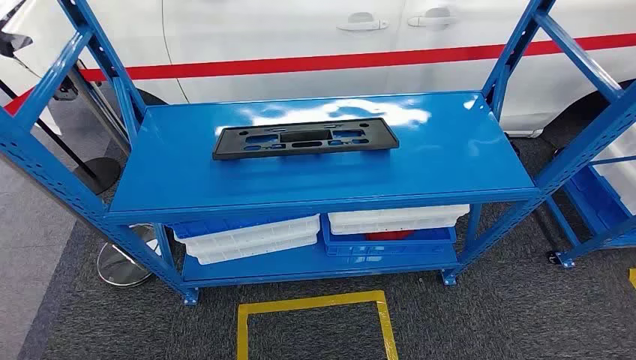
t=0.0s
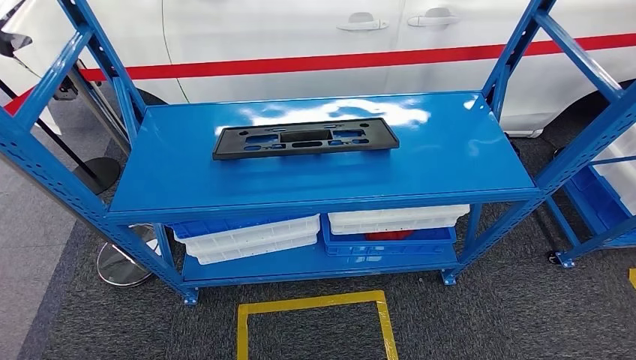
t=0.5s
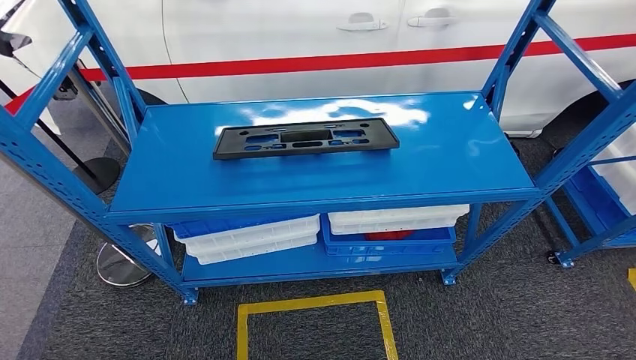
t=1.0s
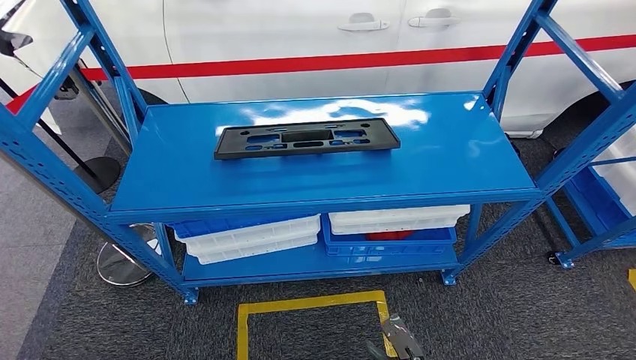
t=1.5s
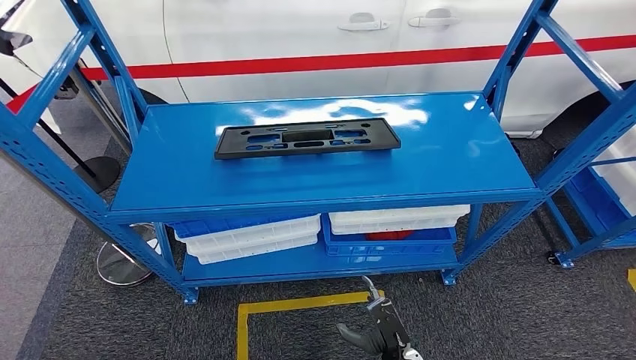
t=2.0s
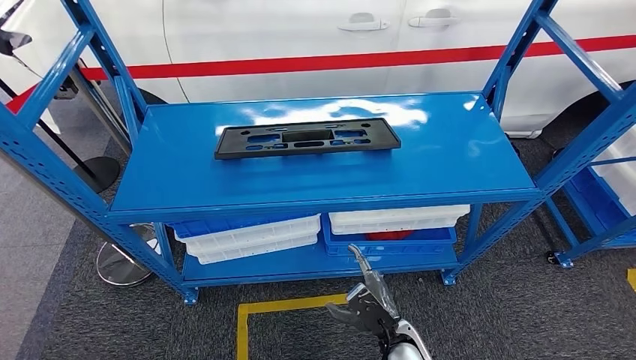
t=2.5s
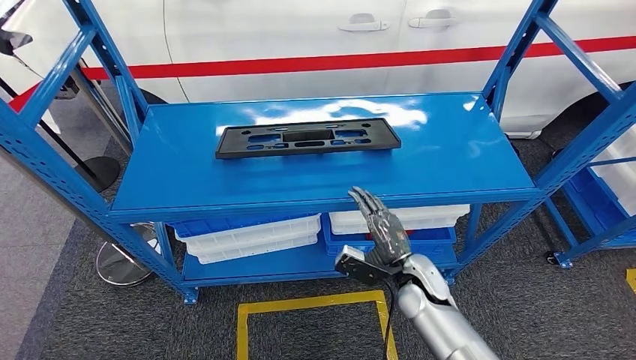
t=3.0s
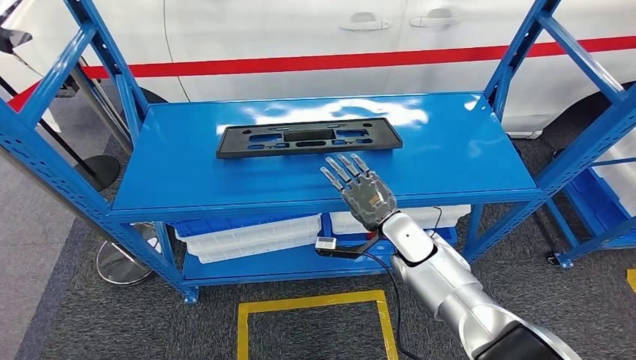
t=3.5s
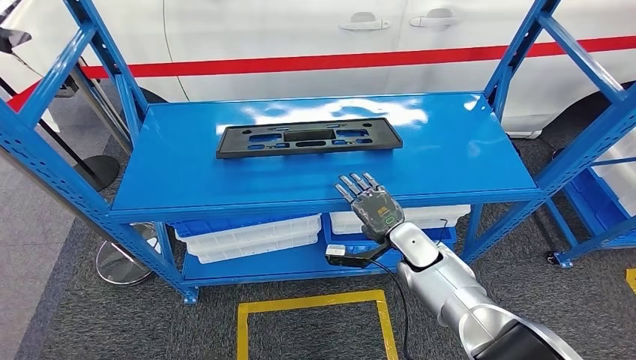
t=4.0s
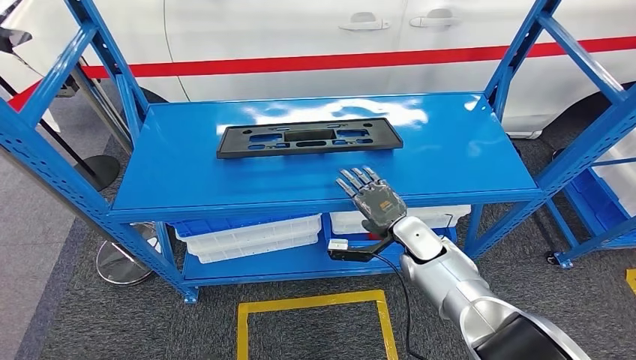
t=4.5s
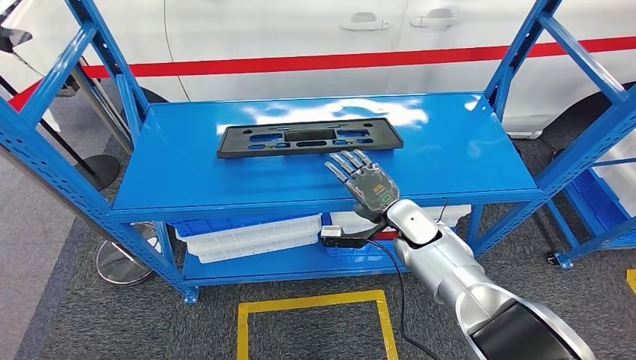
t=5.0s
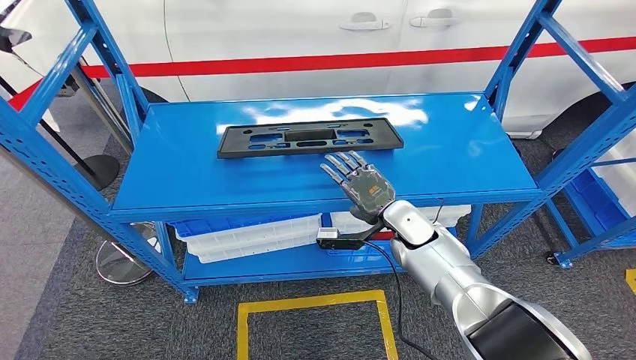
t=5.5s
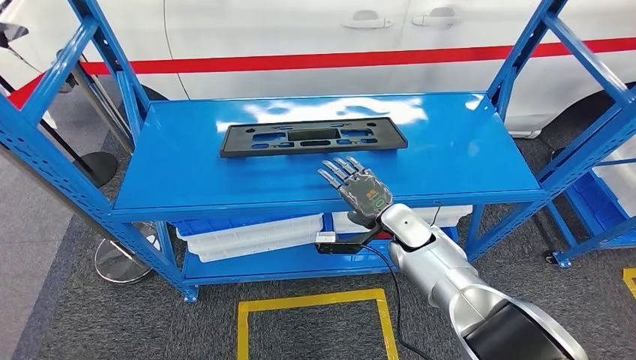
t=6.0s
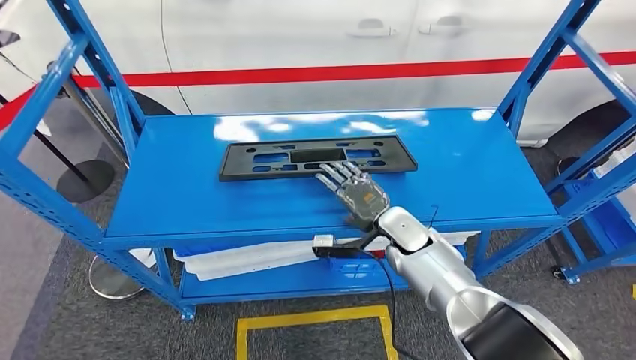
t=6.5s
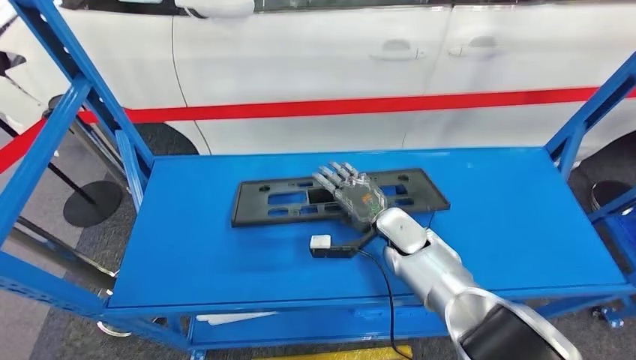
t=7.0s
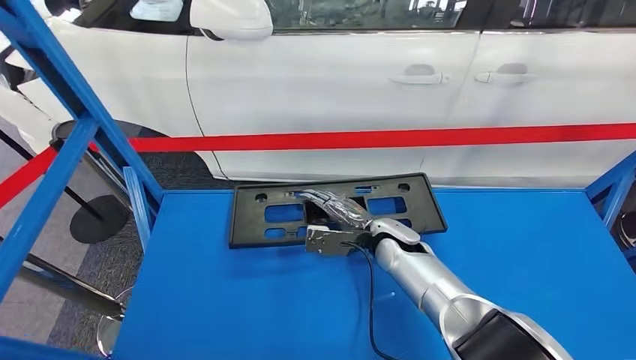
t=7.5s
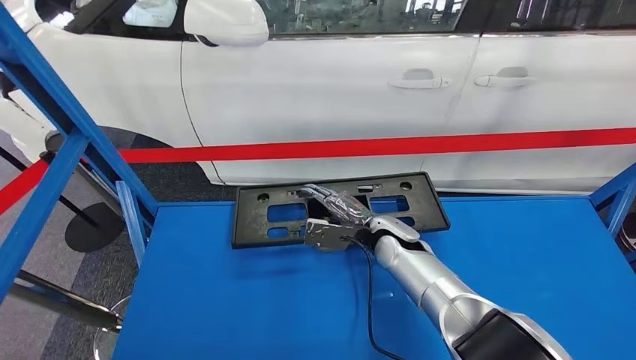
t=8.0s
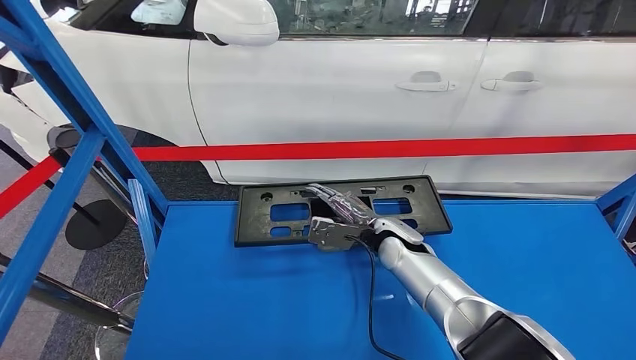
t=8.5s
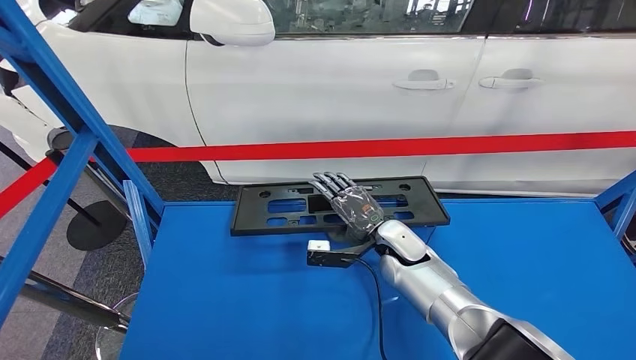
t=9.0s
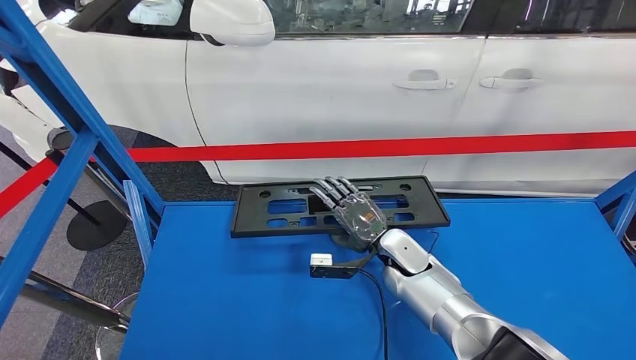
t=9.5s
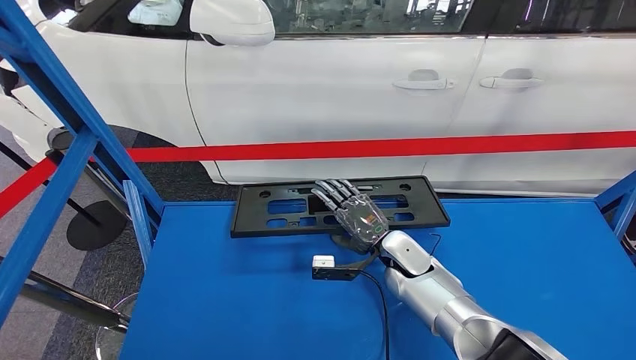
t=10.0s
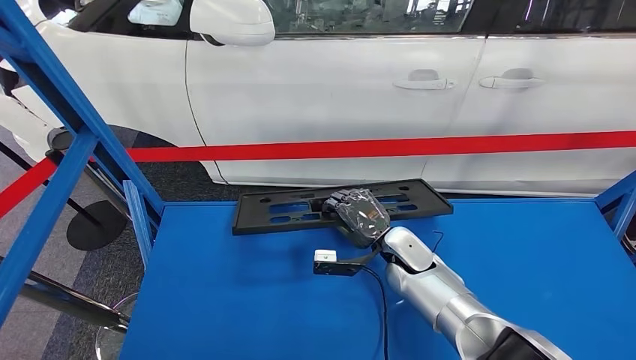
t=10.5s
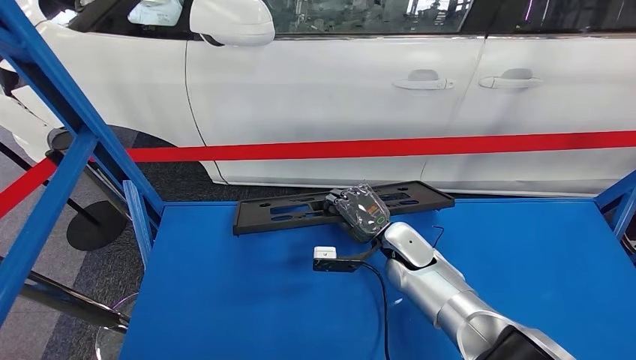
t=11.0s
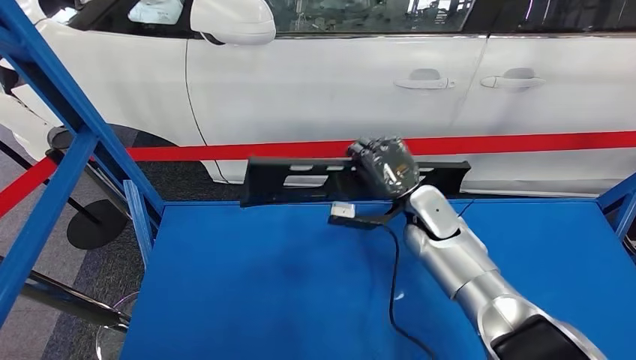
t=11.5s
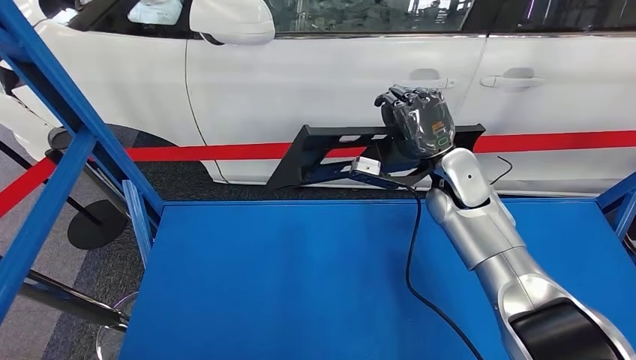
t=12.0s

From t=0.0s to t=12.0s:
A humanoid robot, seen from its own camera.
From t=2.0s to t=4.0s: The right hand travels forward and upward by roughly 25 cm.
From t=4.0s to t=6.0s: The hands move only a little.

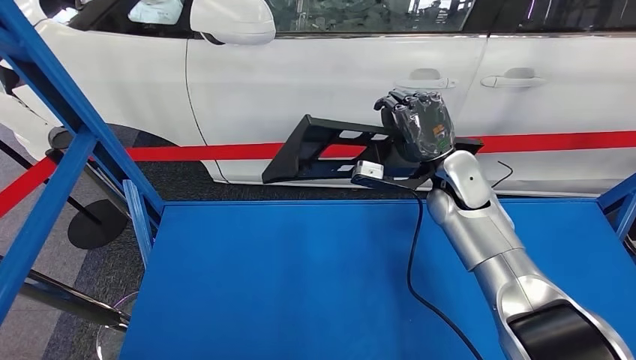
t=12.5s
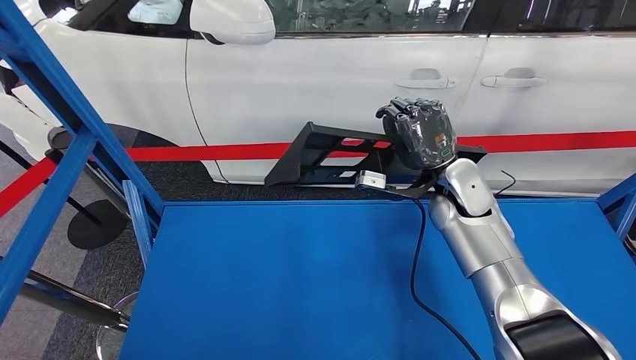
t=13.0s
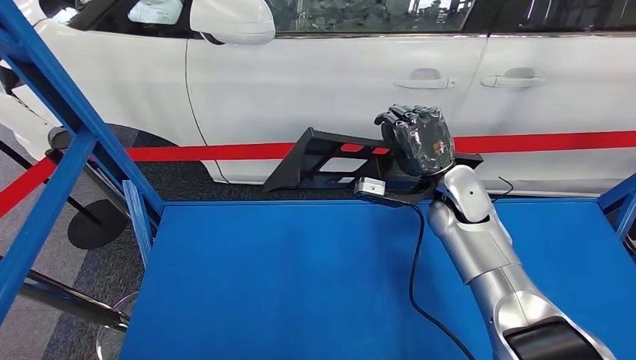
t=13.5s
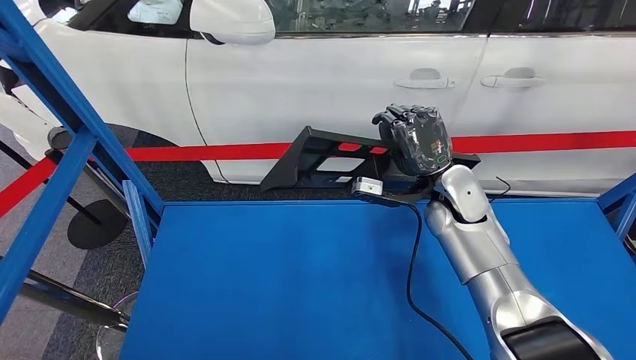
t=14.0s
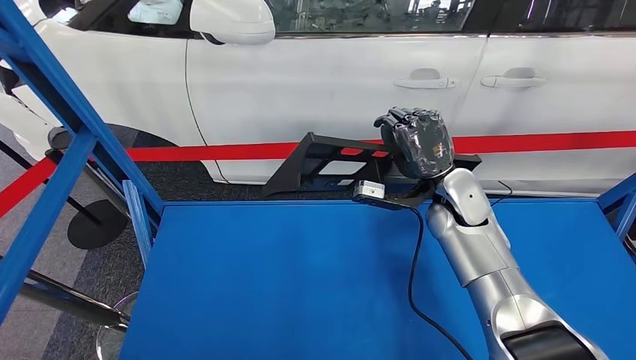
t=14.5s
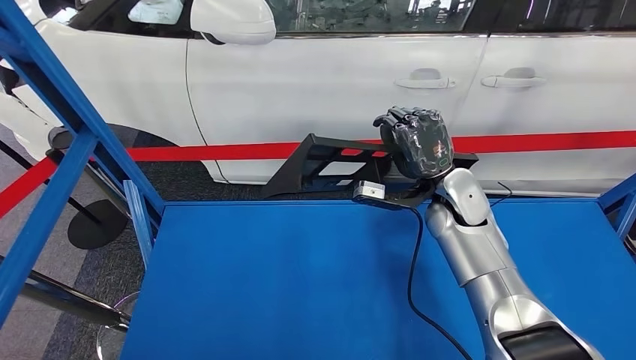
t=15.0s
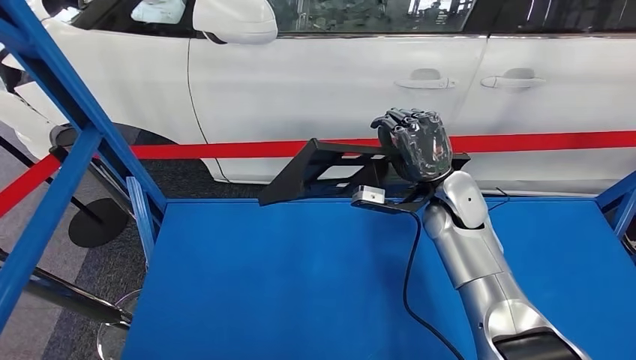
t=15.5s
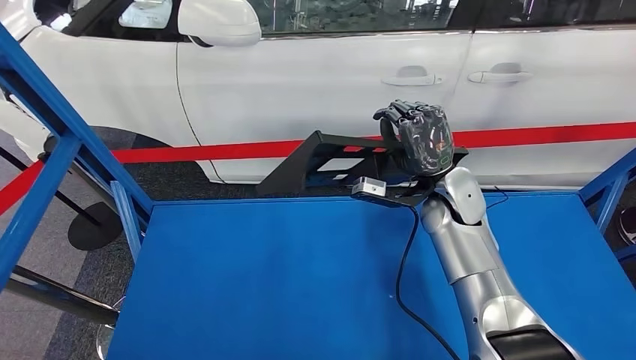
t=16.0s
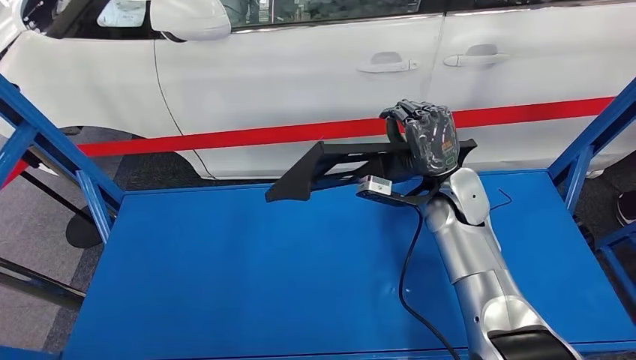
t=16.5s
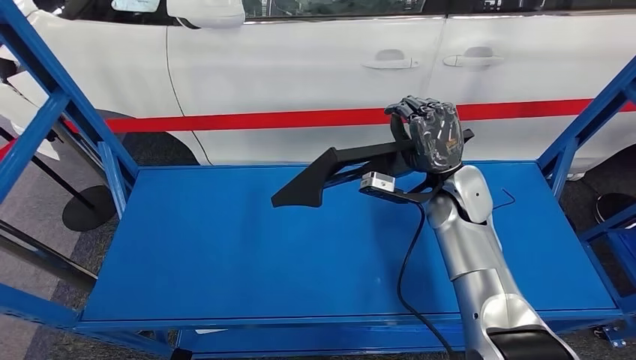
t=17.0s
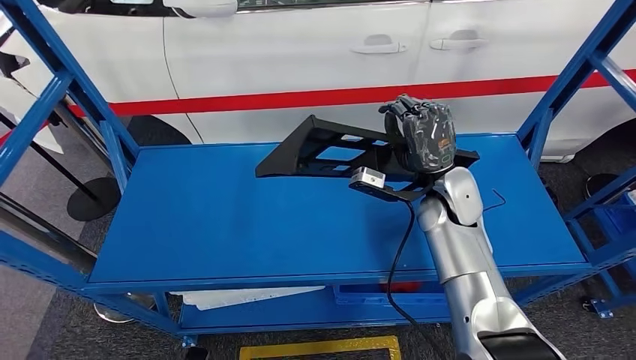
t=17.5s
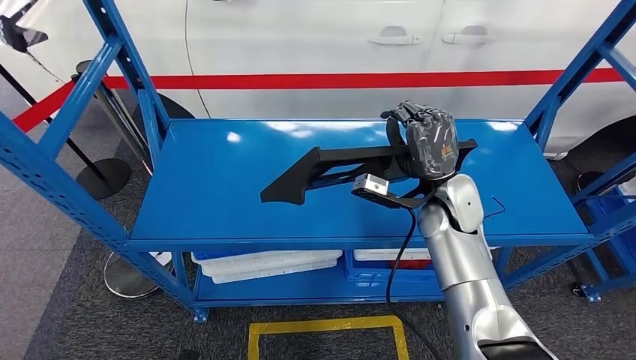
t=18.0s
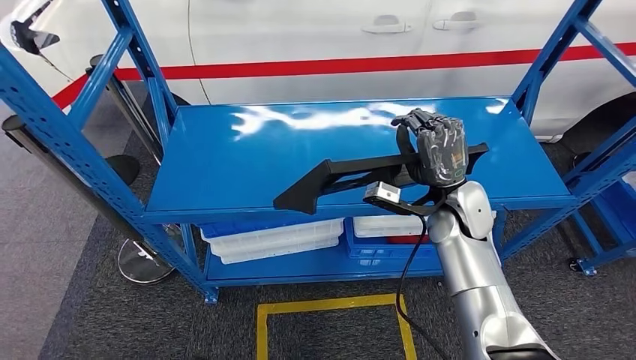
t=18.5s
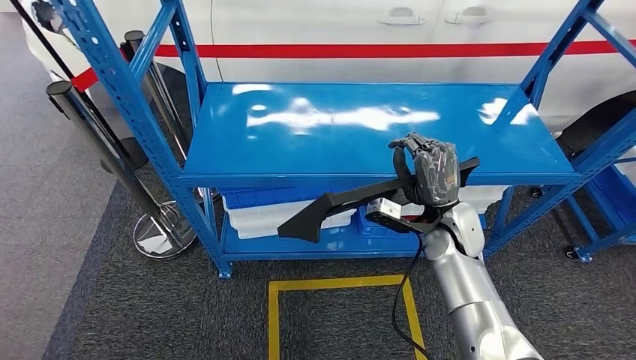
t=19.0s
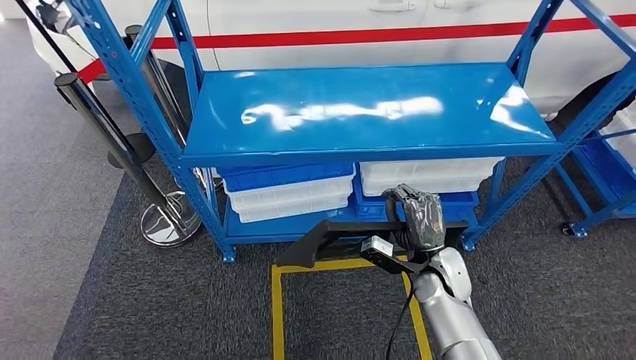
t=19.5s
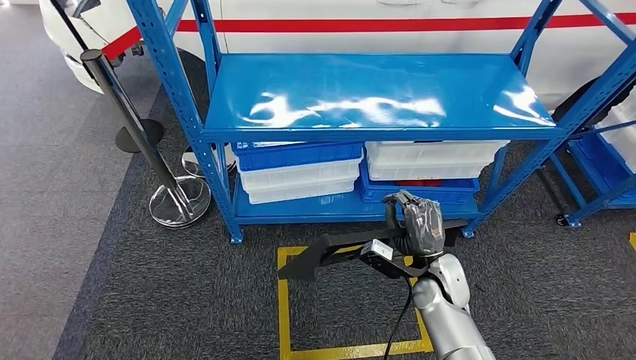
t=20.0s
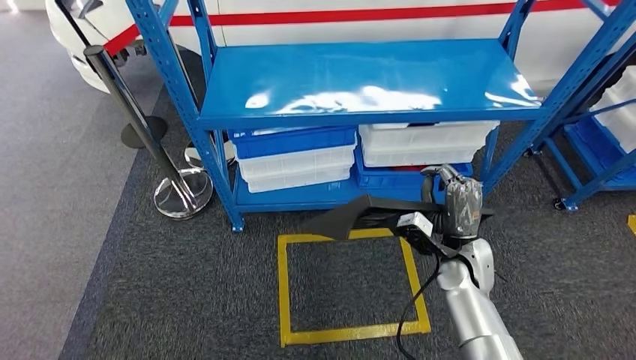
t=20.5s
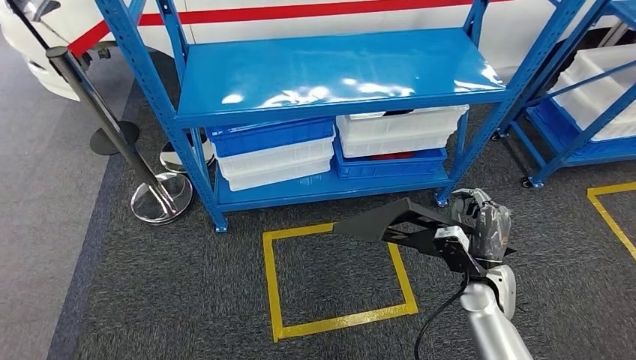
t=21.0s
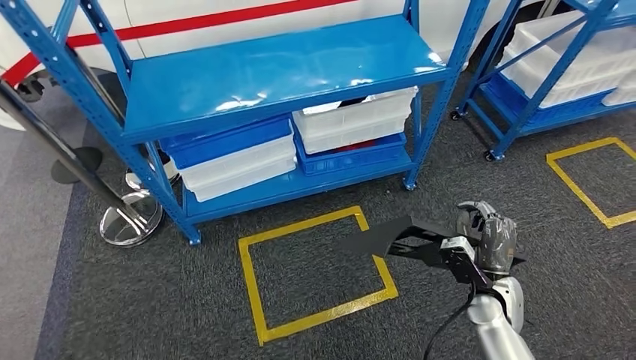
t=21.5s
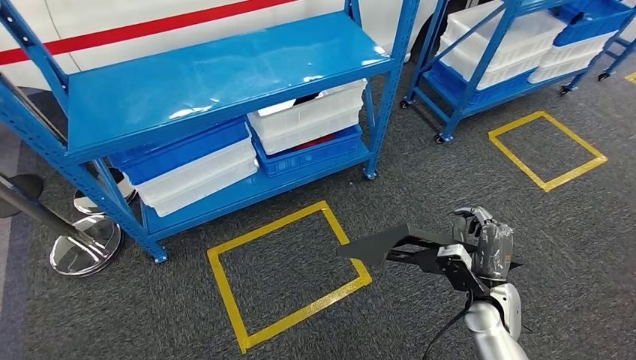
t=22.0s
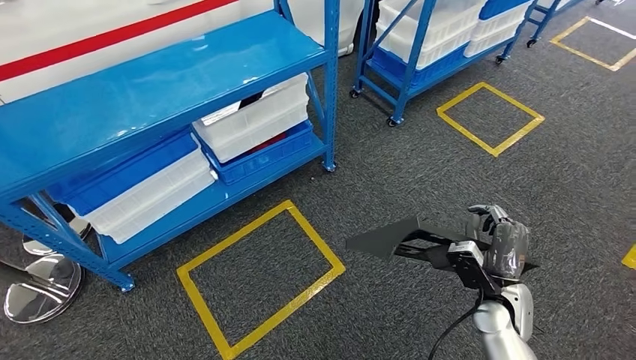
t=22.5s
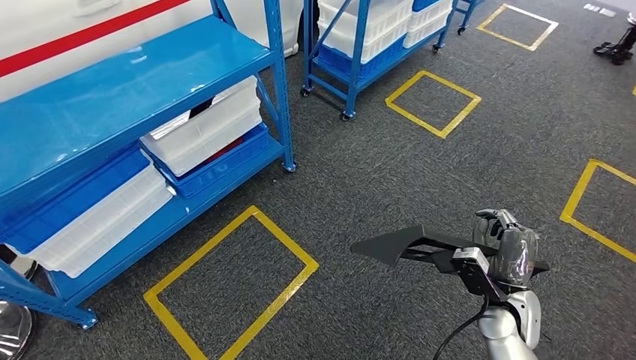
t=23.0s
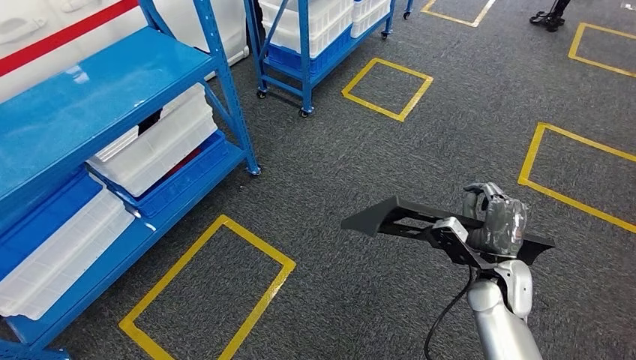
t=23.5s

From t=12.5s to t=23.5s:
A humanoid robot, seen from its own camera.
Step, from t=12.5s to t=17.5s: Pick up the large material from the shelf.
From t=12.5s to t=14.5s: There are only small adjustments of the hands.
